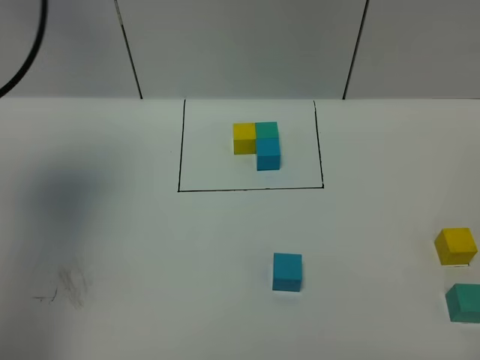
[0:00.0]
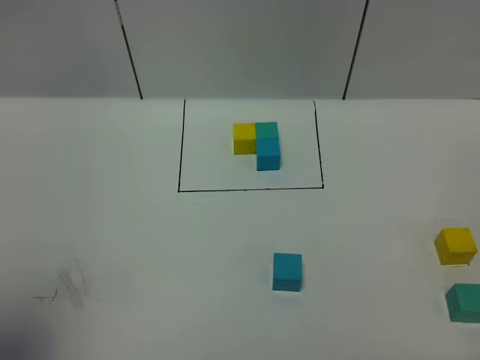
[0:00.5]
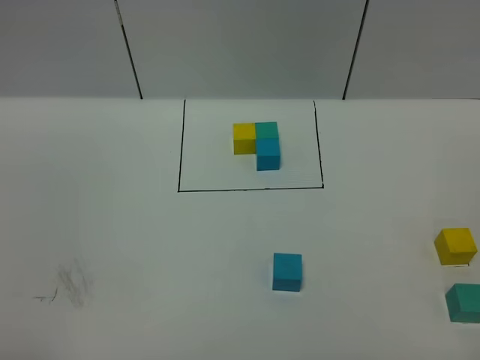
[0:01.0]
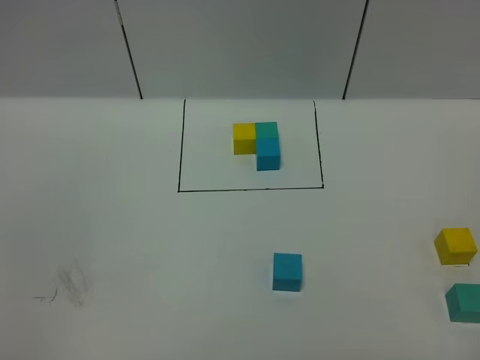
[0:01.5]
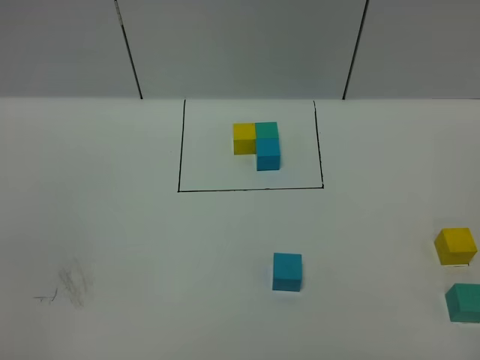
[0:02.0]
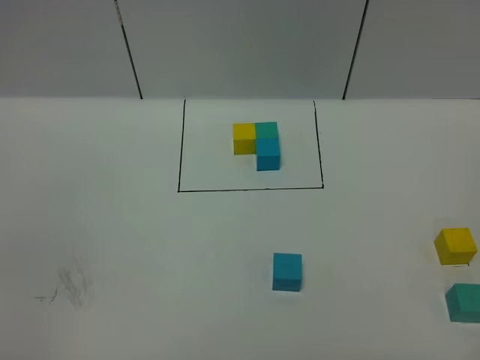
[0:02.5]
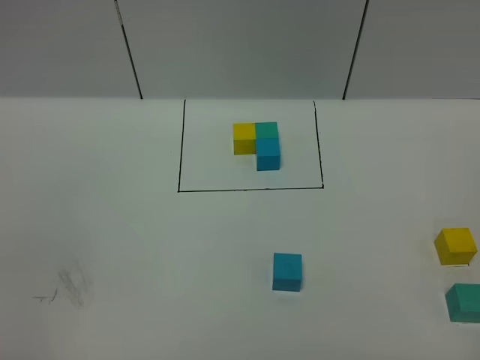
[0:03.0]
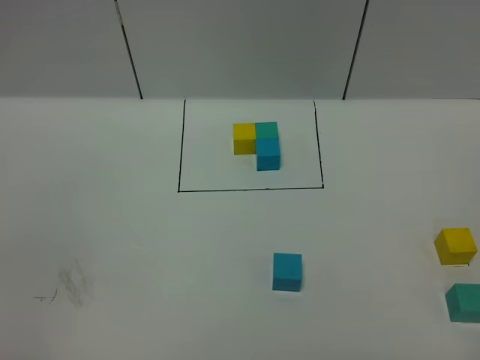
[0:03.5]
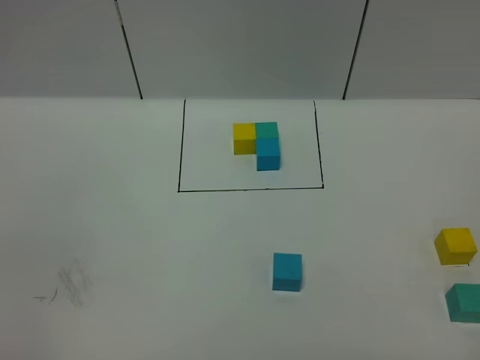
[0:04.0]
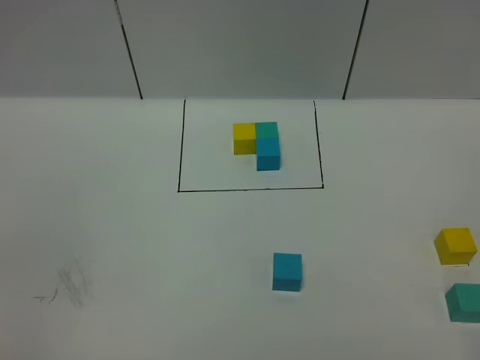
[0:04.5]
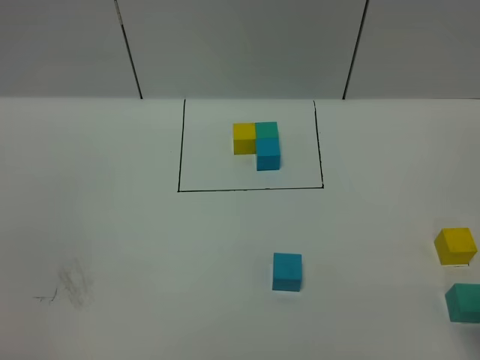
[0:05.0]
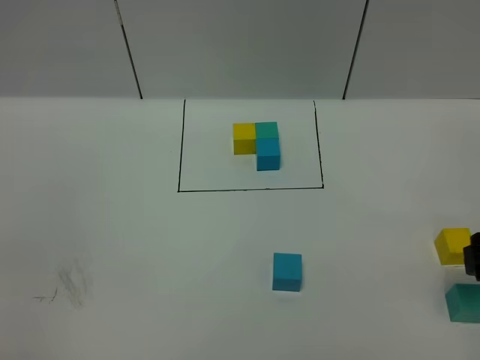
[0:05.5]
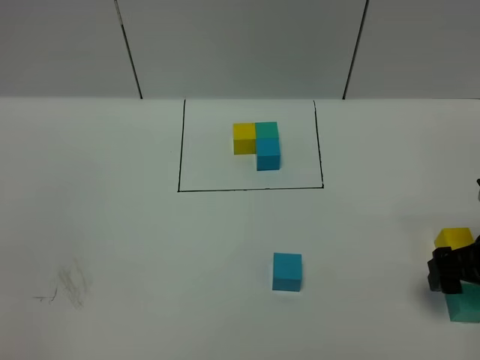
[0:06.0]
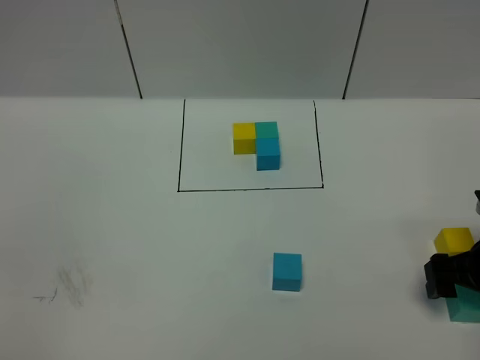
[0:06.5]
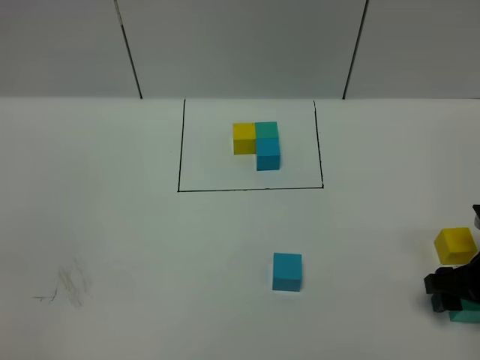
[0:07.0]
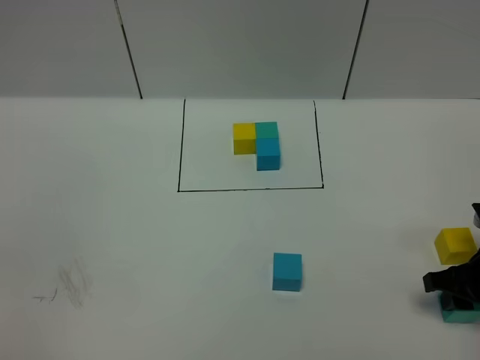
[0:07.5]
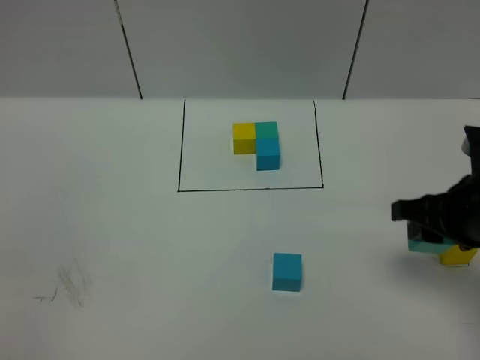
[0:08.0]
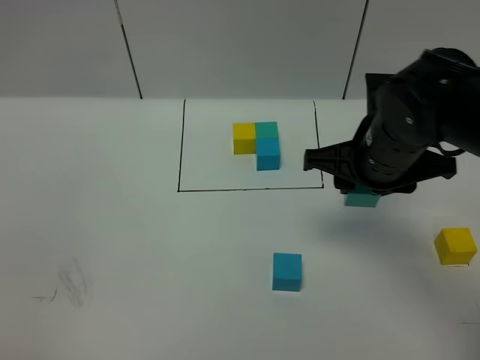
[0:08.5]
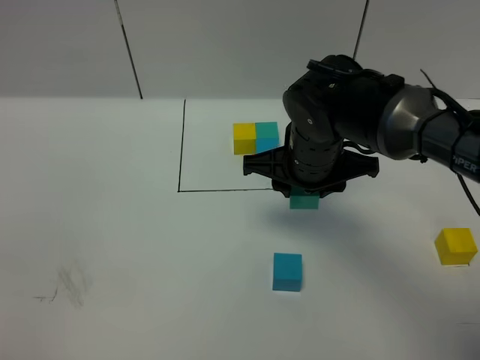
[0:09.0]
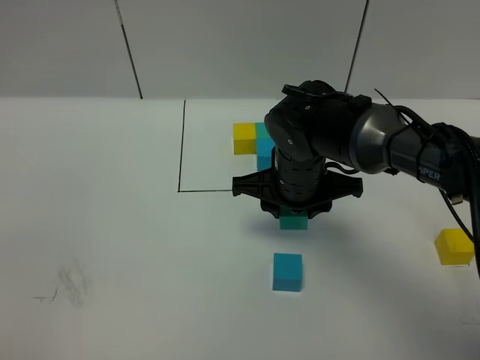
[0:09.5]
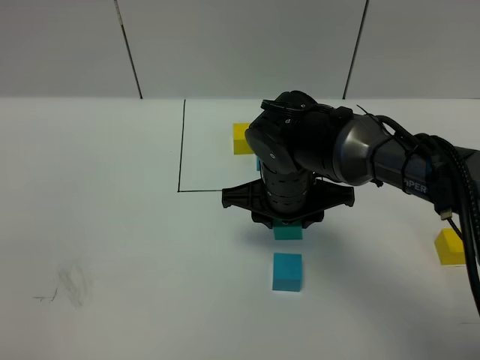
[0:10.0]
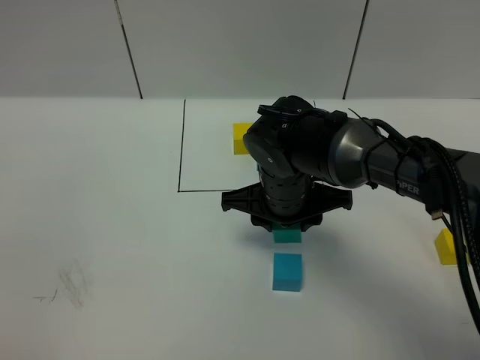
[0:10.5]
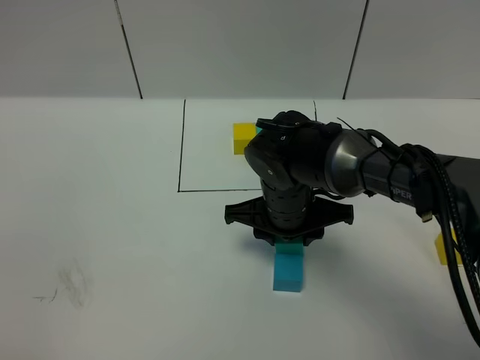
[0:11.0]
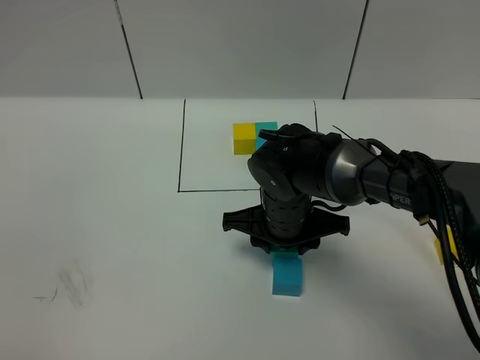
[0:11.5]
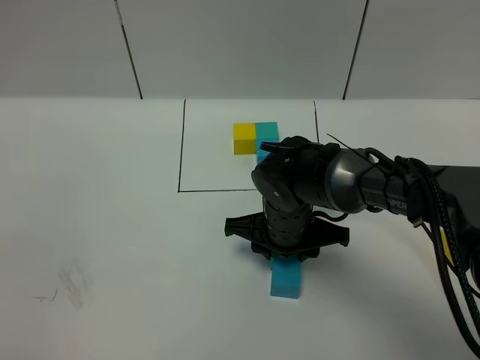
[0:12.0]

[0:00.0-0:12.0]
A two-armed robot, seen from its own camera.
Task of the whole recording: According to the building block template in front, assemble the scattered blocks together.
0:00.0 to 0:02.0: The left gripper shifts some 35 cm backward and downward.
0:02.0 to 0:04.0: Neither gripper changes place.
0:04.0 to 0:06.0: The right gripper shifts roughly 25 cm forward and downward.
0:06.0 to 0:08.0: The right gripper heads upward and to the left, covering about 10 cm, and closes.
0:08.0 to 0:10.0: The right gripper goes roughly 20 cm to the left.
0:10.0 to 0:12.0: The right gripper heads downward, covering approximately 5 cm.

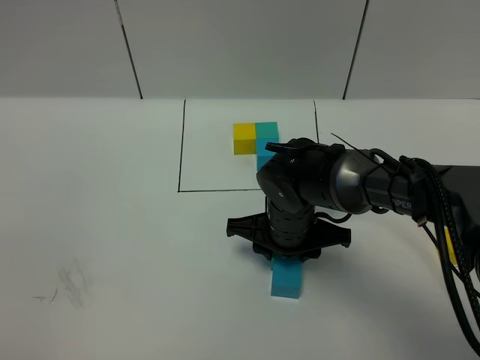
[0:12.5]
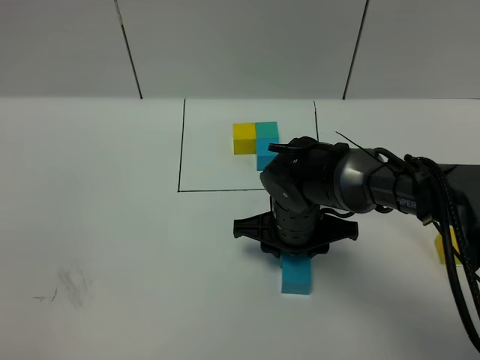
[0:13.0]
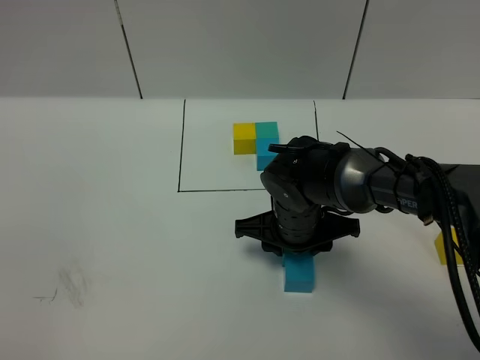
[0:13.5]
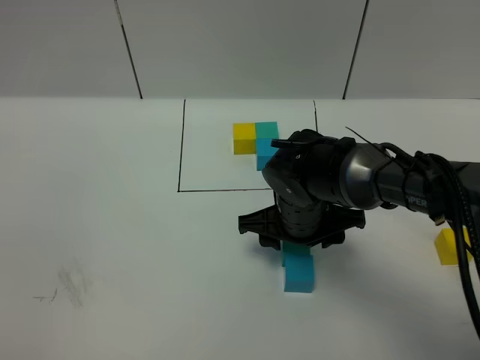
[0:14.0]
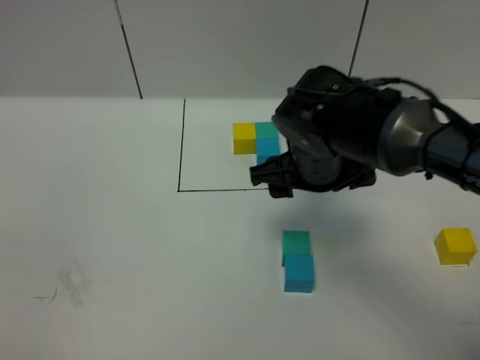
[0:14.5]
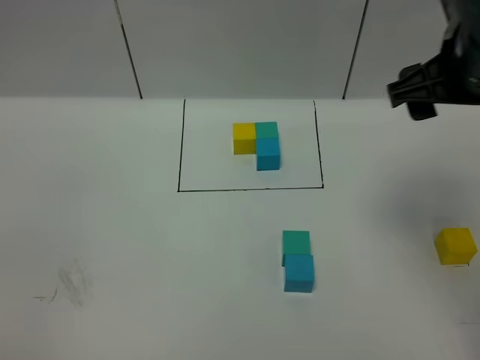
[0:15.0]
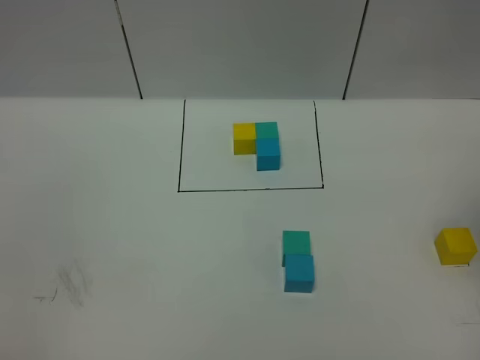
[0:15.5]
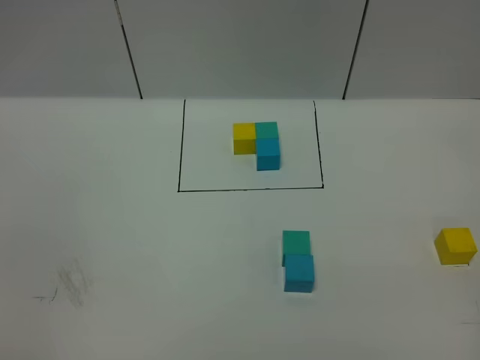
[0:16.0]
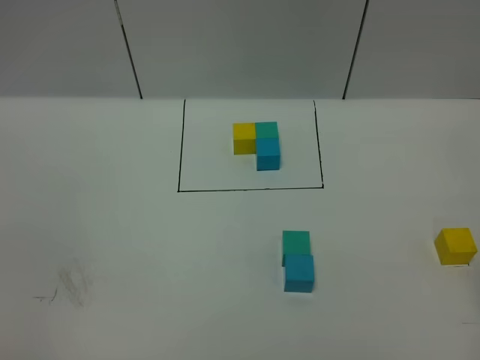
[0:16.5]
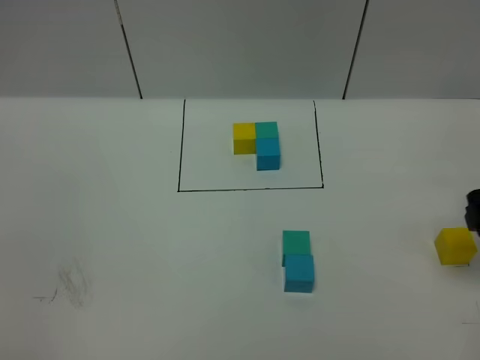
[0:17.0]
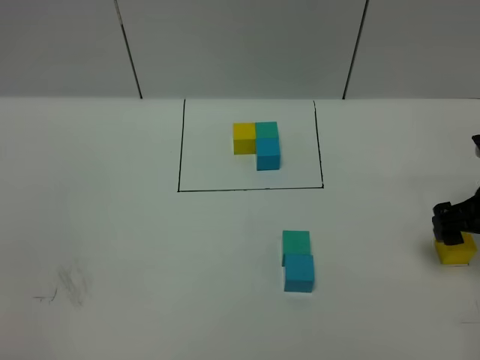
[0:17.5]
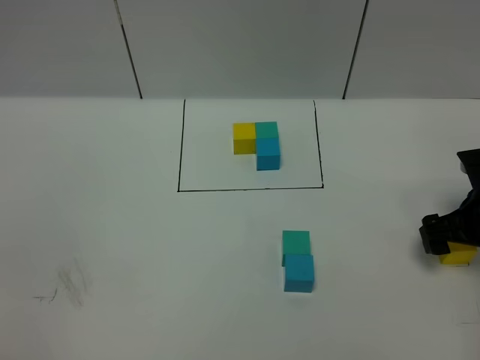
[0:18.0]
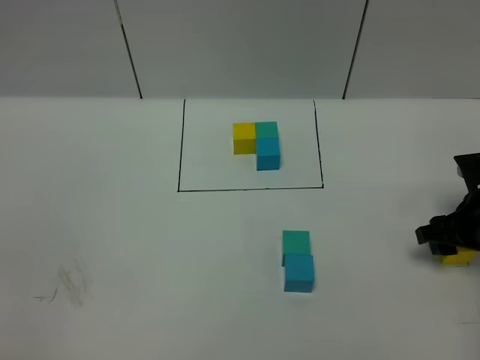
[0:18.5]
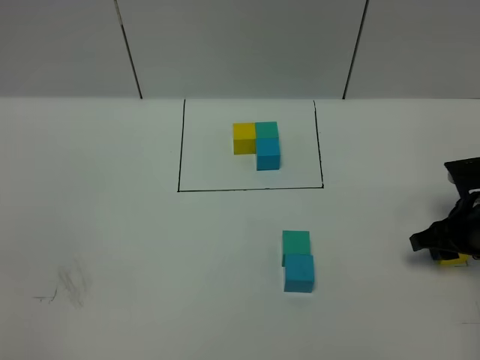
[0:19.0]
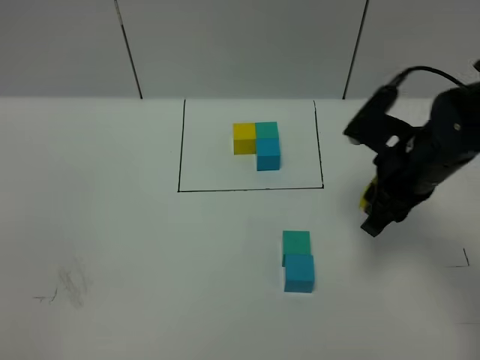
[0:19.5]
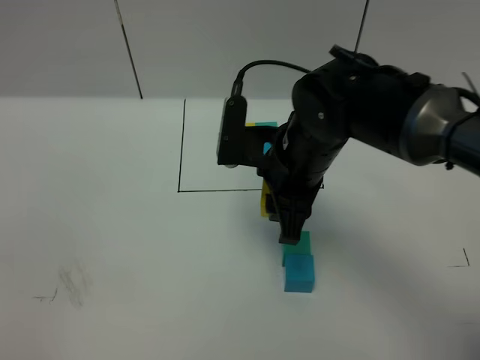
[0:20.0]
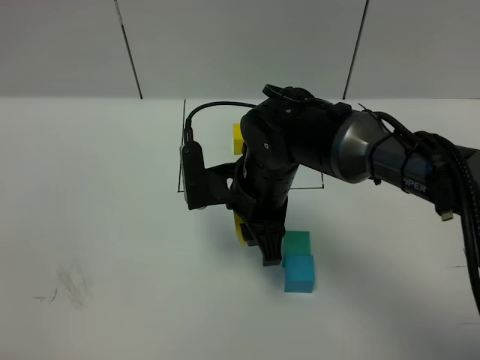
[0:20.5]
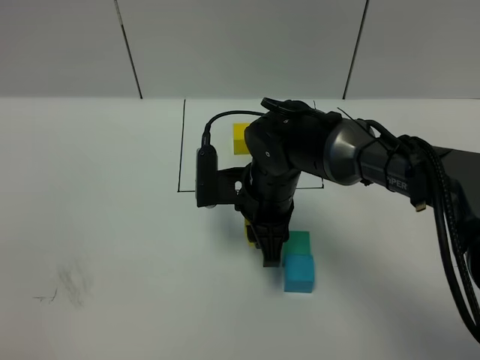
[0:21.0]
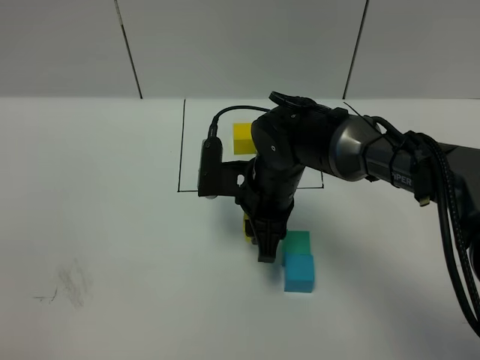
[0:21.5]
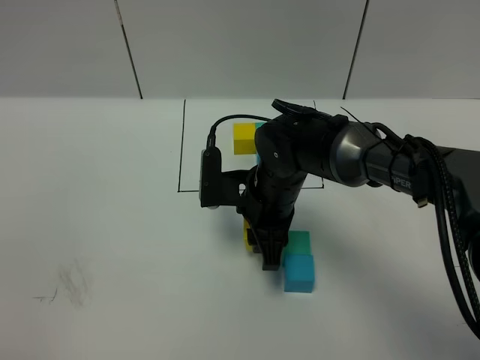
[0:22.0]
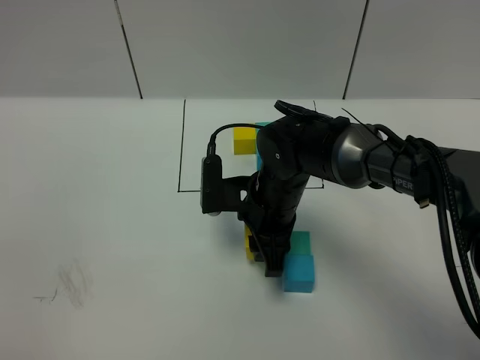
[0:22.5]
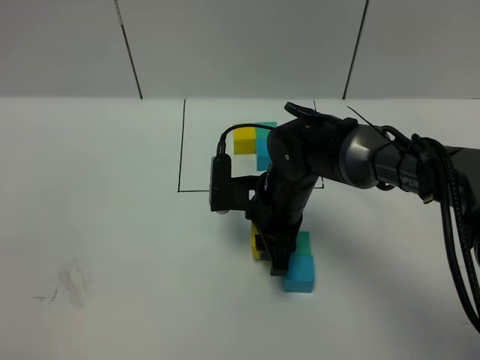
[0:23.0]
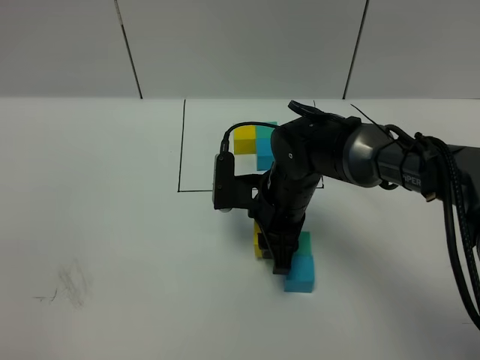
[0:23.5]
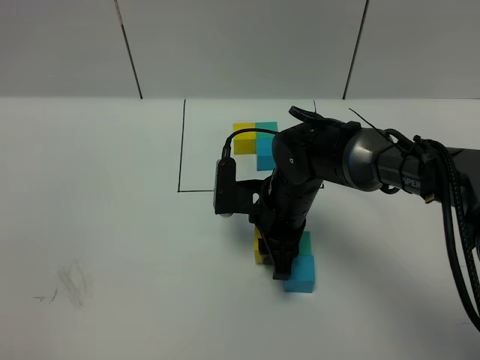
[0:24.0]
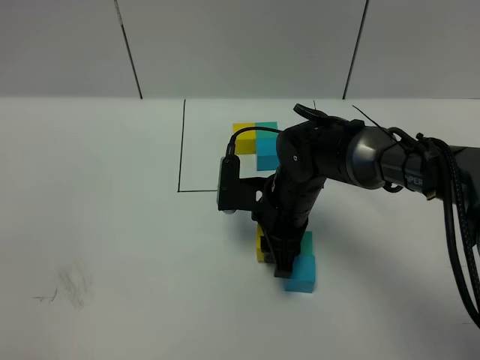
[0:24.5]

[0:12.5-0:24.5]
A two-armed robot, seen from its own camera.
Task of the whole recording: According to the building block template in front, assemble the scattered blocks together.
0:12.5 to 0:14.5: The right gripper travels upward by roughly 10 cm, and opens up.
0:14.5 to 0:16.5: The right gripper goes approximately 30 cm to the right and backward, and opens its fingers.
0:16.5 to 0:18.5: The right gripper heads downward and forward, covering roughly 20 cm, and closes.
0:18.5 to 0:20.5: The right gripper travels to the left by some 30 cm.
0:20.5 to 0:22.5: There are only small adjustments of the grippers.
0:22.5 to 0:24.5: The grippers stay close to where they were, moving slightly.

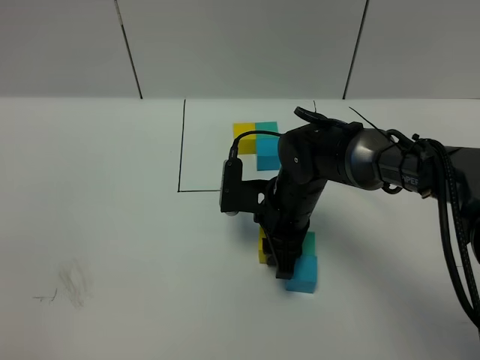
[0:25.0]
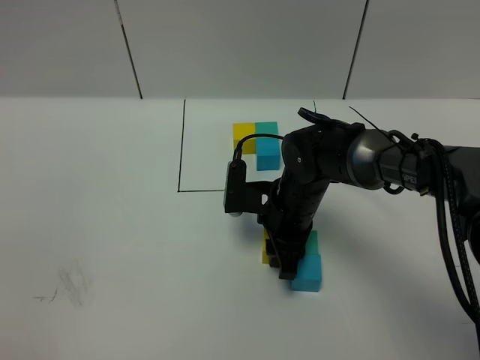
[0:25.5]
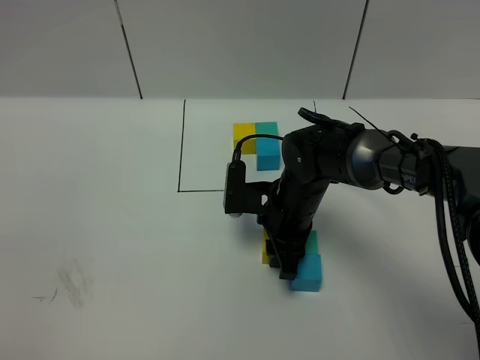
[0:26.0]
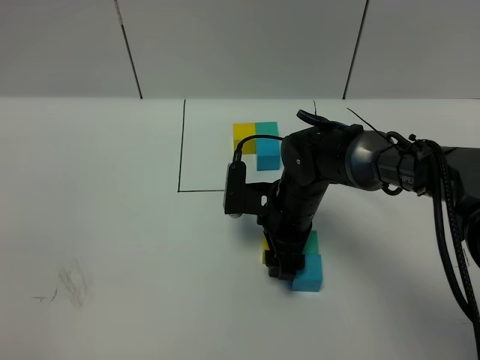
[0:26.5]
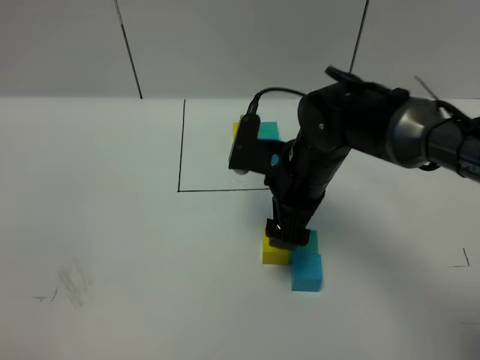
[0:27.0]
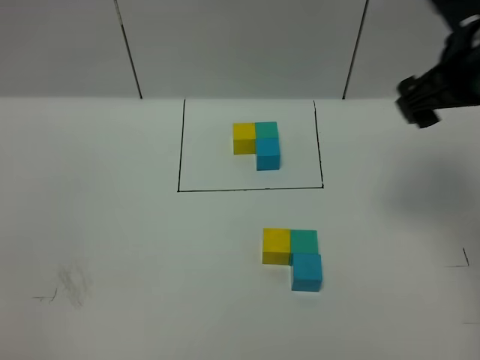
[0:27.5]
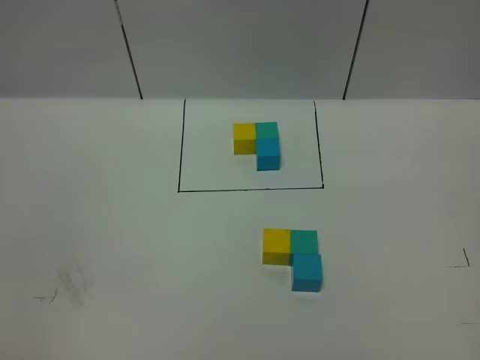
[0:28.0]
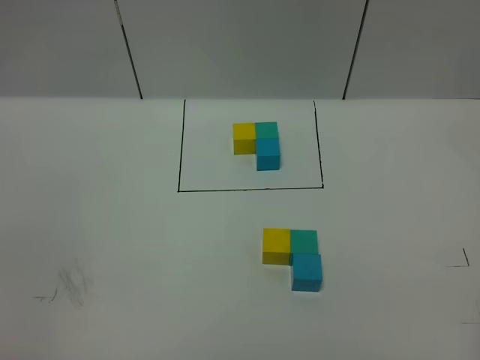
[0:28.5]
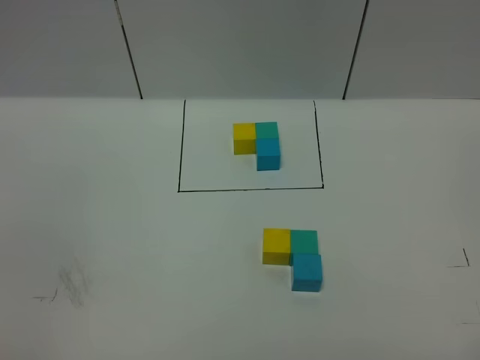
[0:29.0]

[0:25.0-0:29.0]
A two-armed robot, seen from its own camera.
Task of the whole recording: According to the building block template in front, assemble the scattered blocks together.
0:25.0 to 0:27.0: The right gripper moves upward, approximately 10 cm, and opens.
0:27.0 to 0:29.0: The right gripper travels backward and to the right by some 40 cm.
